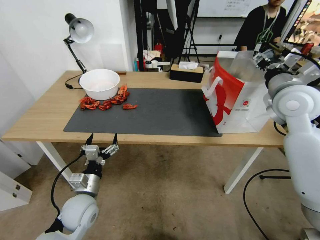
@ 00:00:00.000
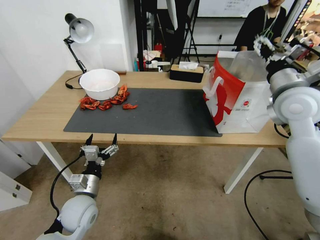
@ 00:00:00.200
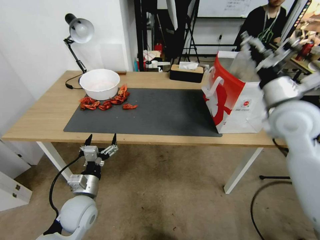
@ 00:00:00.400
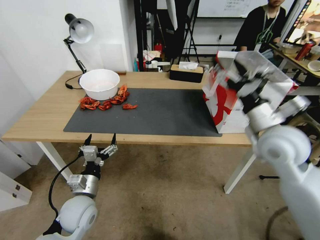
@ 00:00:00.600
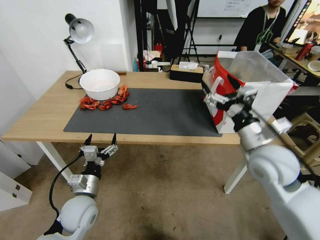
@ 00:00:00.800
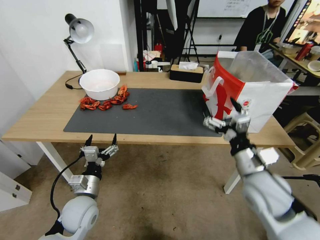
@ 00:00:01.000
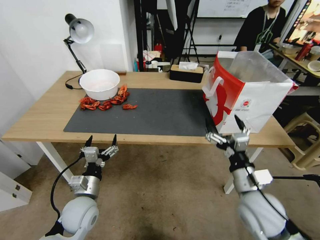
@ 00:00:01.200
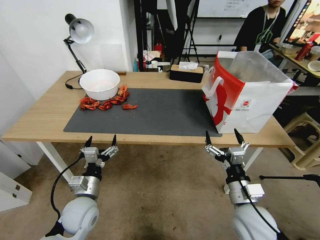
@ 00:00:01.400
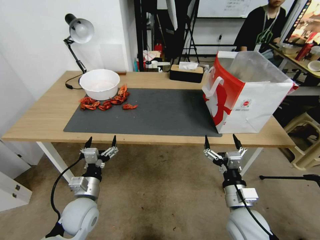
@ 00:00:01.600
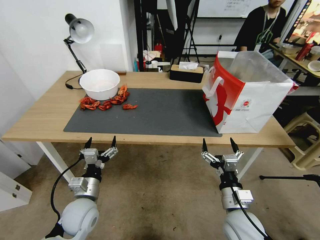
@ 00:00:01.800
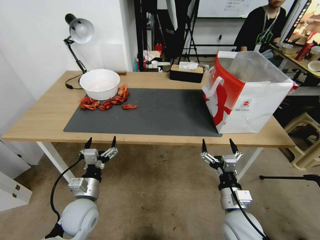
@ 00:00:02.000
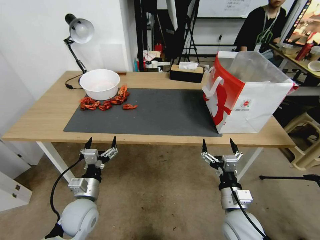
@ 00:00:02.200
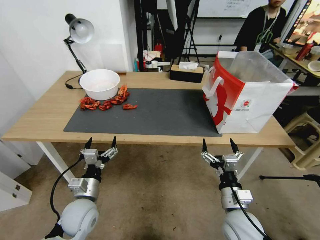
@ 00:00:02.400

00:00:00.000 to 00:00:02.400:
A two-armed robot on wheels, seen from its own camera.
Task of the whole recording: Close the takeout container lid, then place the container into the takeout bag.
00:00:00.000 to 00:00:01.200: The right gripper shifts some 30 cm downward and backward, and opens its fingers.
00:00:01.200 to 00:00:02.400: The right gripper shifts roughly 5 cm downward.
